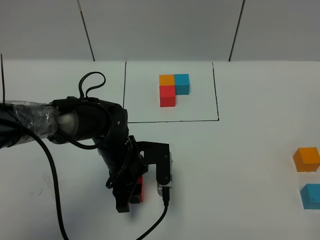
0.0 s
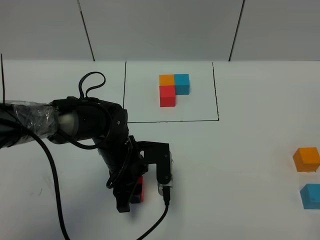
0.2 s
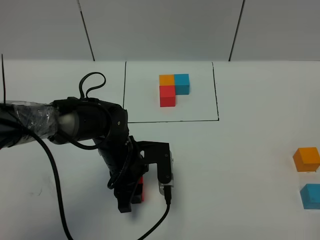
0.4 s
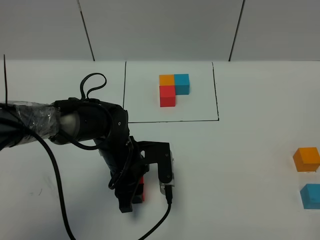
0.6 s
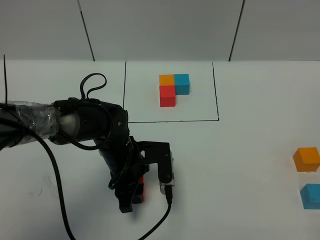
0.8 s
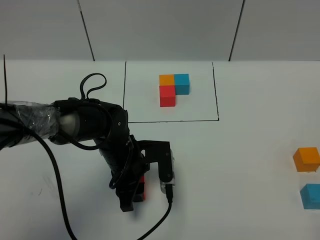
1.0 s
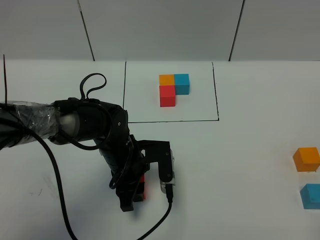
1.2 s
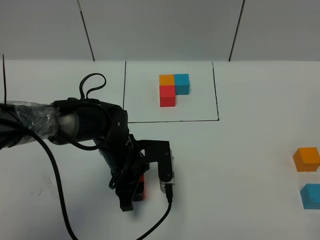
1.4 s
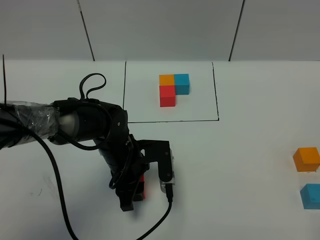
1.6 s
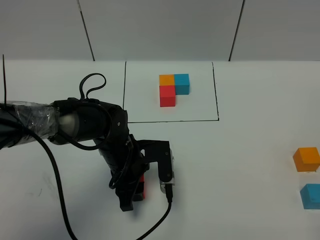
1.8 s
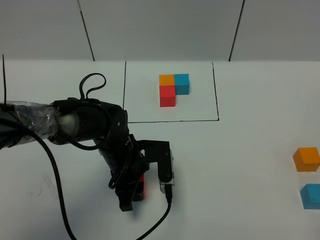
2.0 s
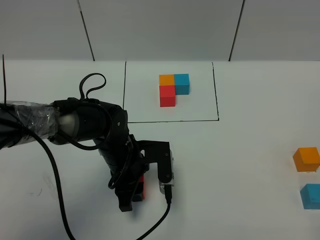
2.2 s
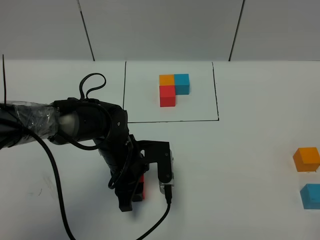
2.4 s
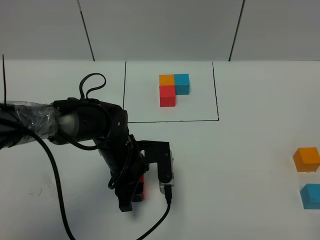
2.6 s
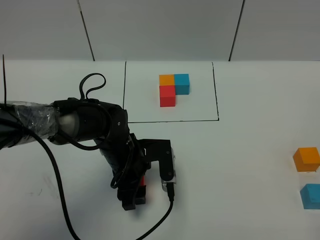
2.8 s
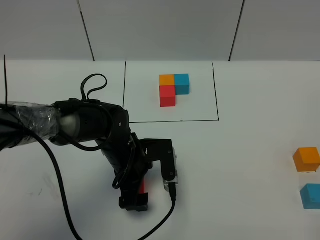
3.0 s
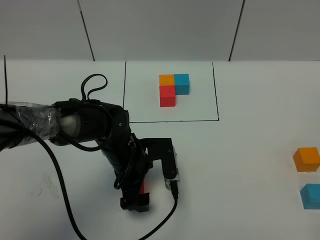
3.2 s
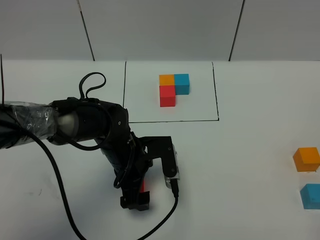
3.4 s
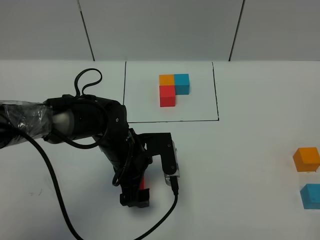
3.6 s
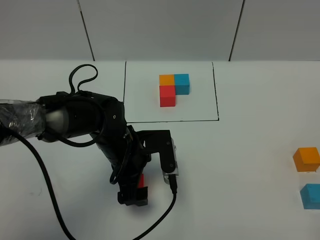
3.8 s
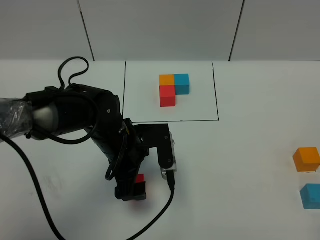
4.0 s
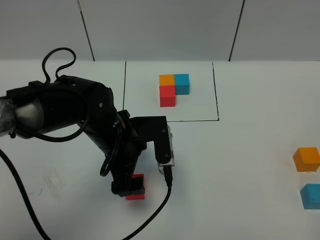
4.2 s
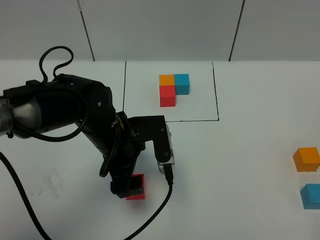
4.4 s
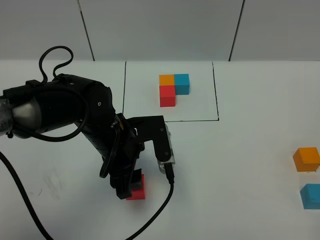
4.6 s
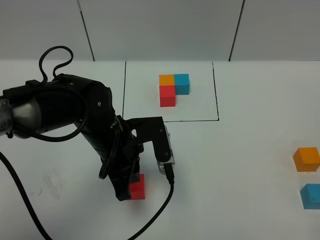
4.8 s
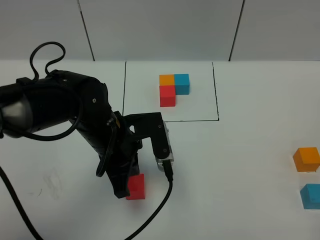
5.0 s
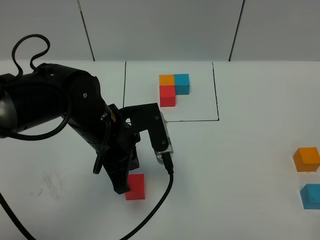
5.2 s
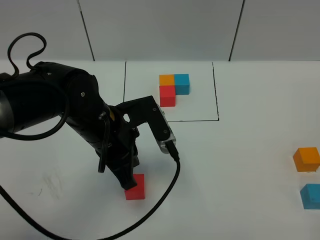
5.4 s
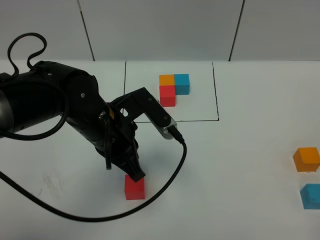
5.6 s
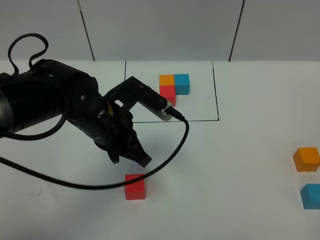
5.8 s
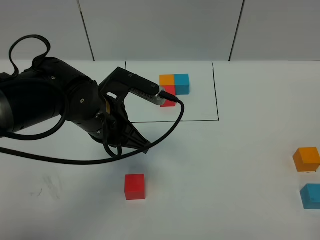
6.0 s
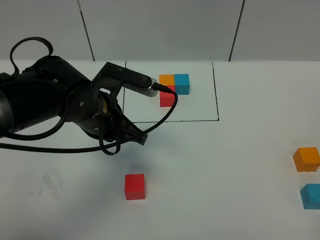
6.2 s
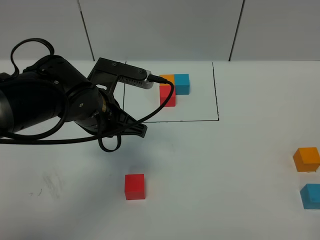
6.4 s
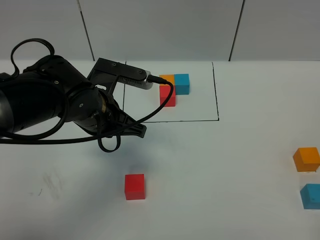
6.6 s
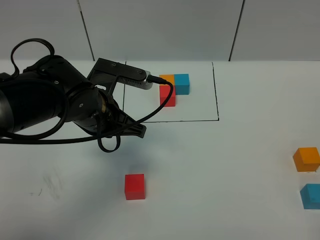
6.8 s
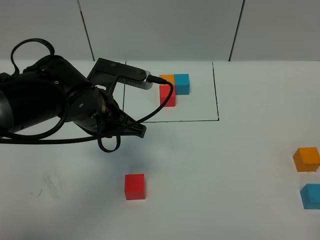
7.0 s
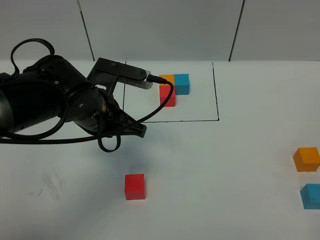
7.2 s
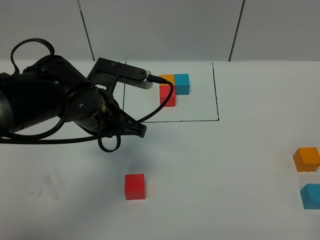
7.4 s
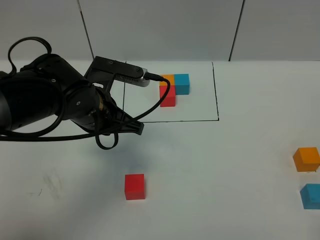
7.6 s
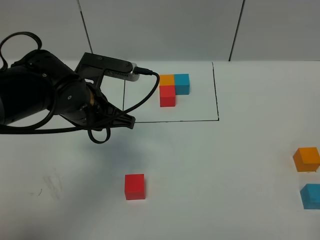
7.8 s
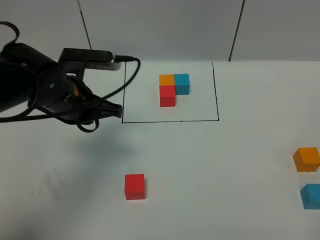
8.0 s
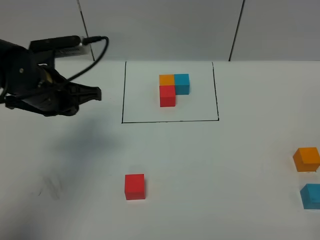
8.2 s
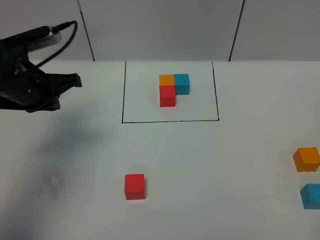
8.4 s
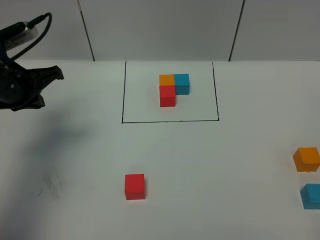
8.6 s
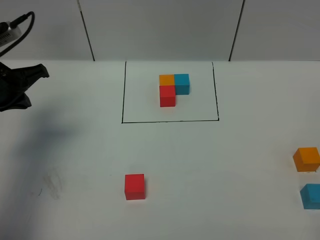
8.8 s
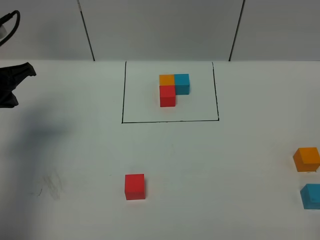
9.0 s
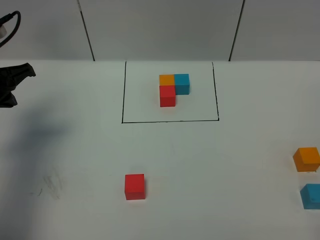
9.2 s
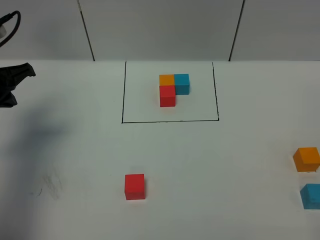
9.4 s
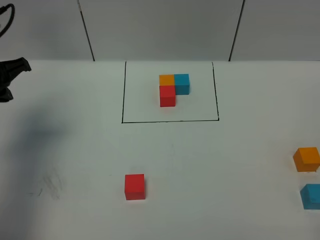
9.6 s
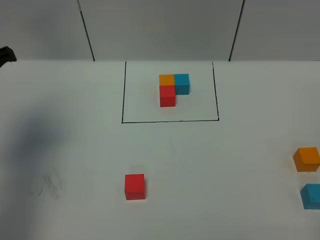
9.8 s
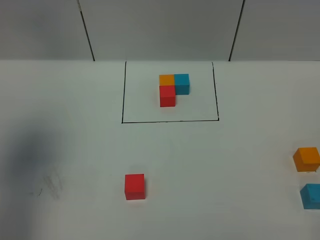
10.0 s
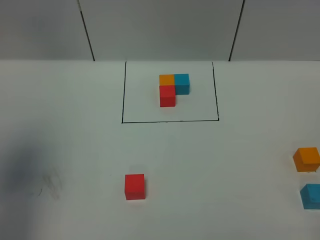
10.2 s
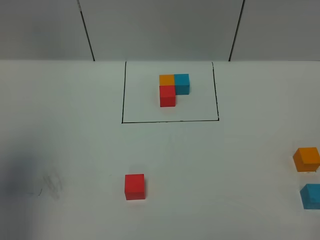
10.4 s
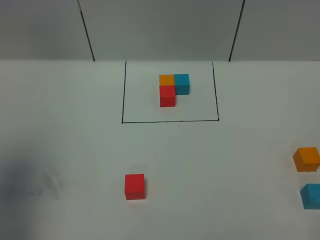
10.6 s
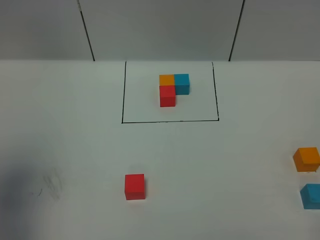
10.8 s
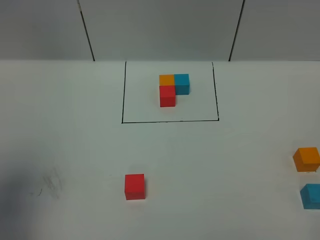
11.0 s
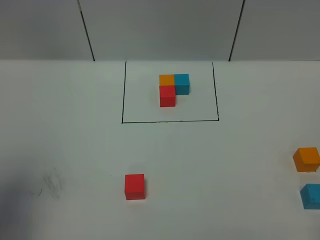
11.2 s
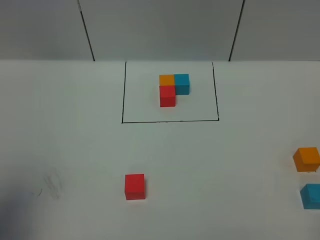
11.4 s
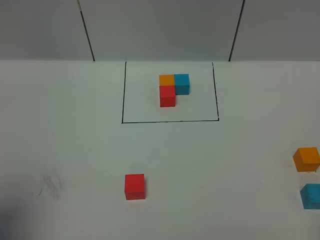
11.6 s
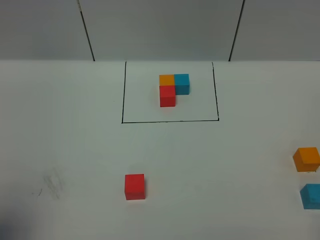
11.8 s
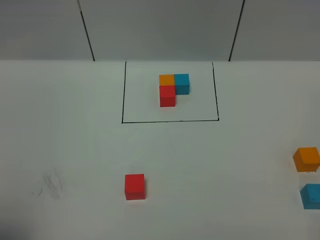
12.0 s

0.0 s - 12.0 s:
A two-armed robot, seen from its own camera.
Task of the whole recording: According to the building block template in front, assemble the scattered blocks together.
Step, 0.0 s - 4.8 s: Put the red cube in the center of the table.
0.0 s - 1.6 s: The two grippers keep their place.
1.6 s - 3.0 s: The left gripper opens its fingers.
3.0 s - 4.4 s: The left gripper moves upward, about 10 cm.
4.4 s - 6.0 s: The left gripper closes its fingers.
6.0 s - 7.6 s: The grippers stay close to where they were, moving slightly.
7.6 s - 9.0 s: The left gripper moves to the left, about 20 cm.
9.0 s - 10.4 s: The left gripper is displaced backward and upward by some 20 cm.
10.4 s - 12.0 s: The left gripper is displaced backward by some 15 cm.

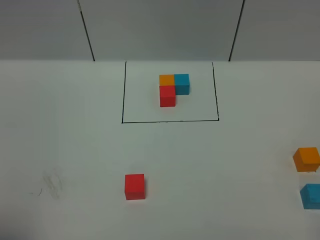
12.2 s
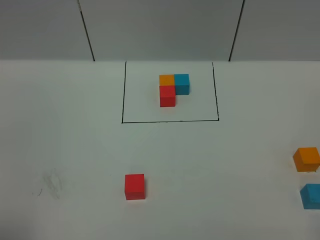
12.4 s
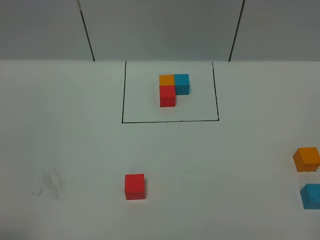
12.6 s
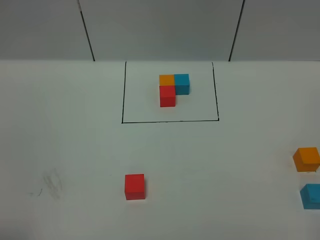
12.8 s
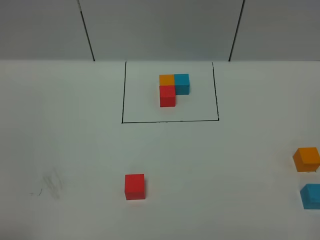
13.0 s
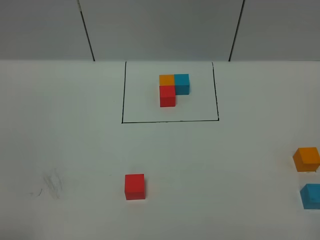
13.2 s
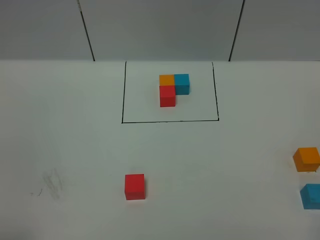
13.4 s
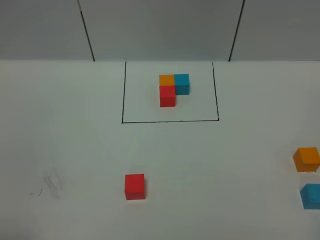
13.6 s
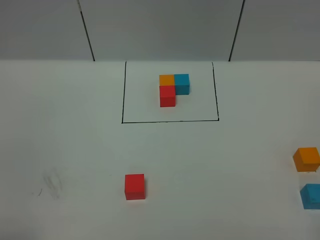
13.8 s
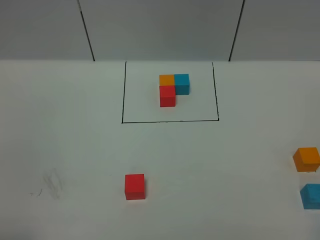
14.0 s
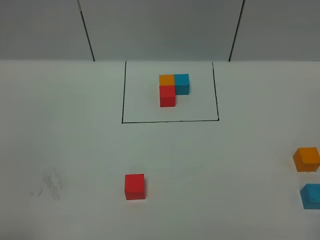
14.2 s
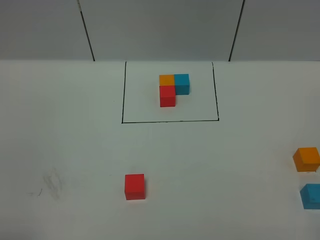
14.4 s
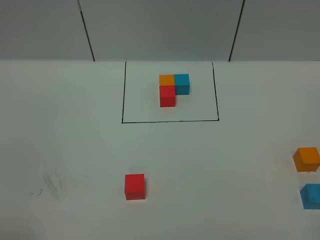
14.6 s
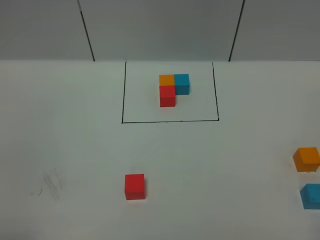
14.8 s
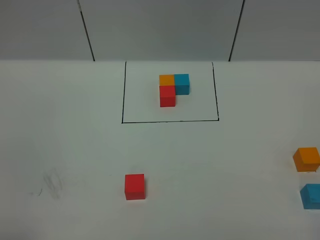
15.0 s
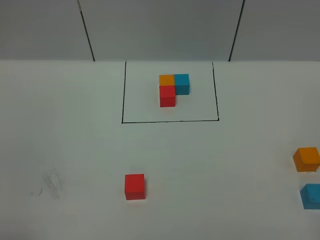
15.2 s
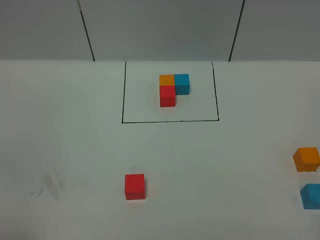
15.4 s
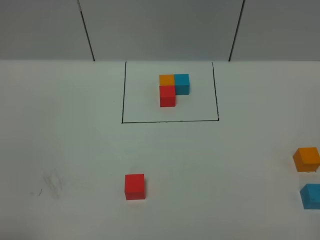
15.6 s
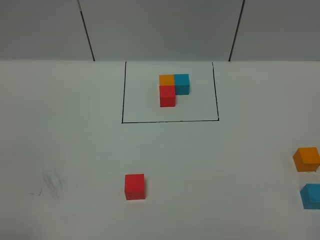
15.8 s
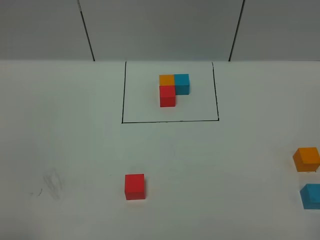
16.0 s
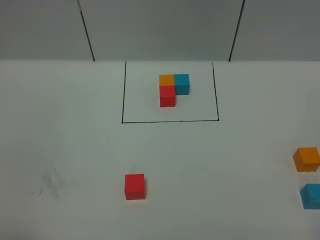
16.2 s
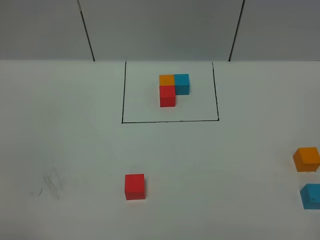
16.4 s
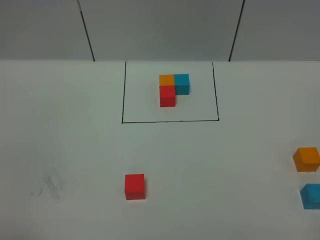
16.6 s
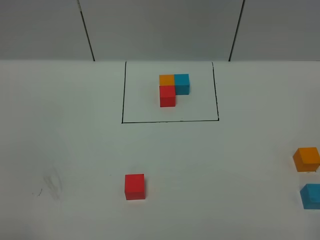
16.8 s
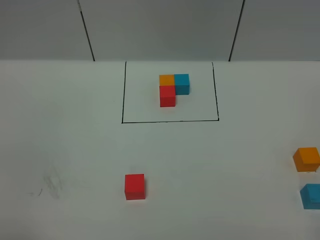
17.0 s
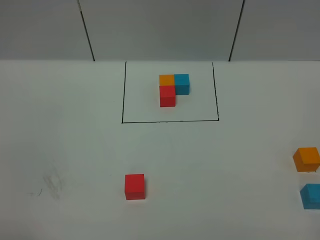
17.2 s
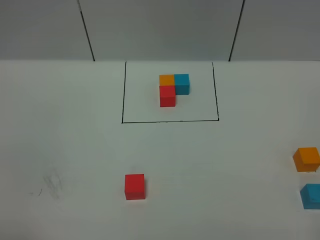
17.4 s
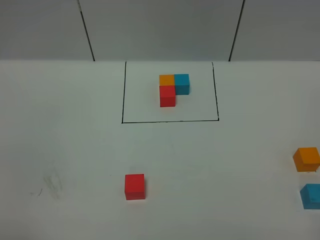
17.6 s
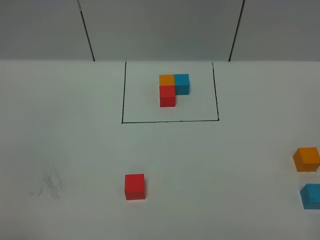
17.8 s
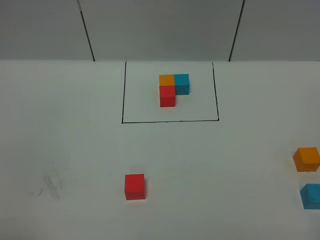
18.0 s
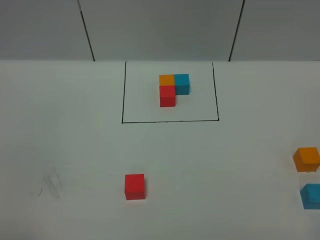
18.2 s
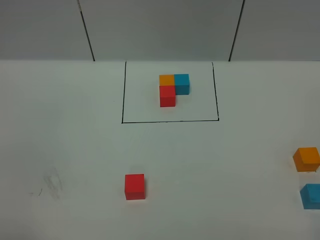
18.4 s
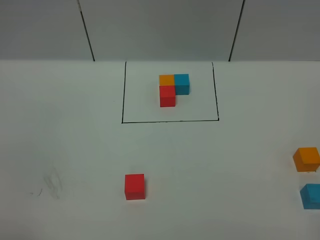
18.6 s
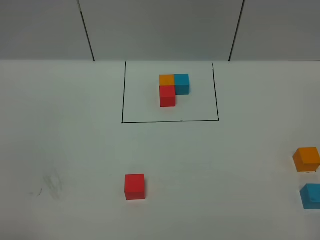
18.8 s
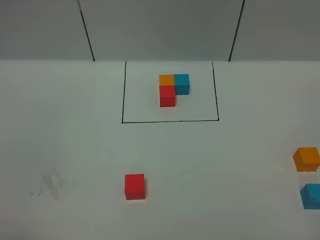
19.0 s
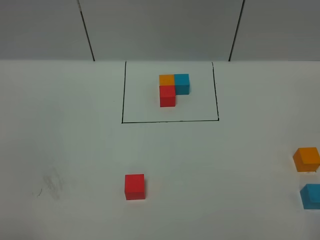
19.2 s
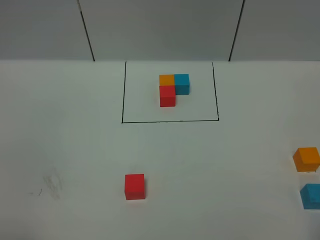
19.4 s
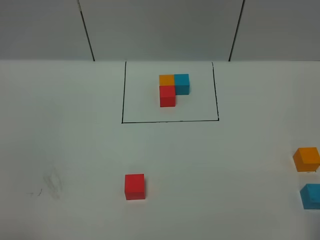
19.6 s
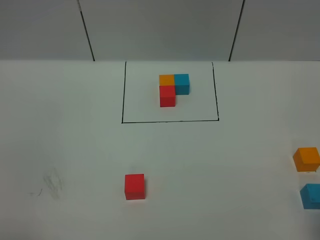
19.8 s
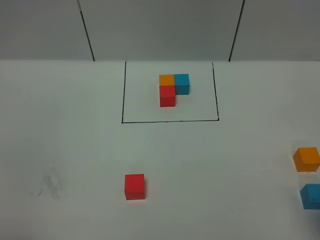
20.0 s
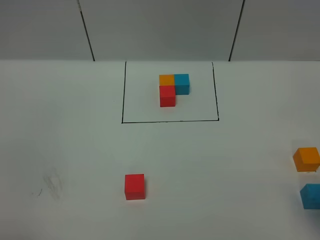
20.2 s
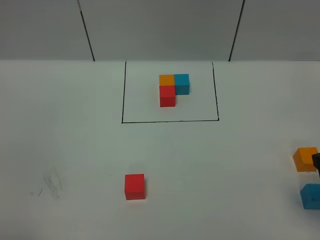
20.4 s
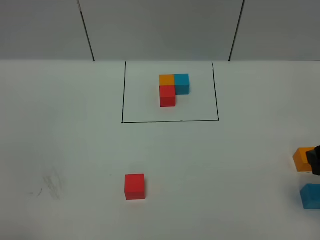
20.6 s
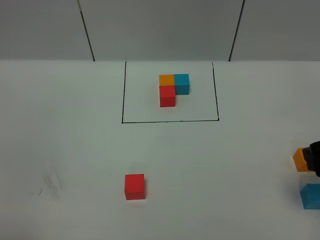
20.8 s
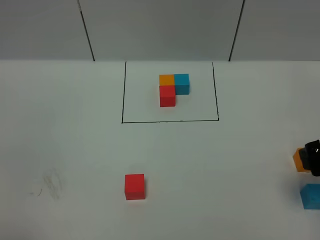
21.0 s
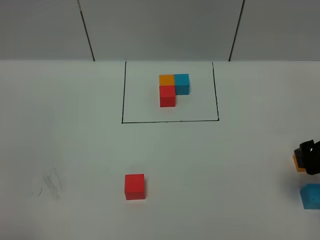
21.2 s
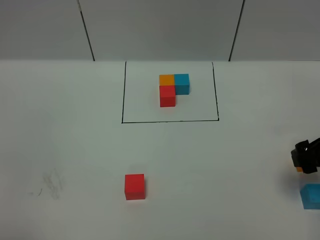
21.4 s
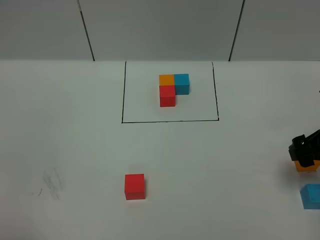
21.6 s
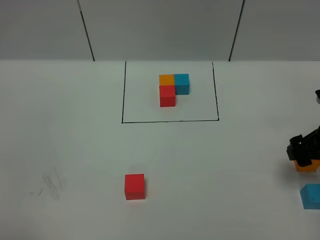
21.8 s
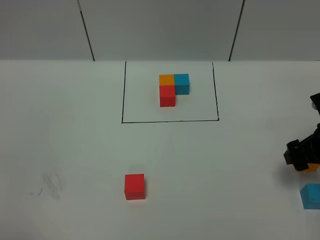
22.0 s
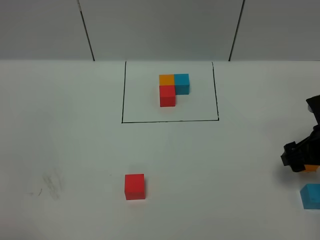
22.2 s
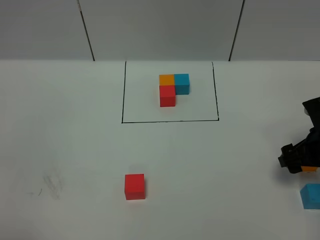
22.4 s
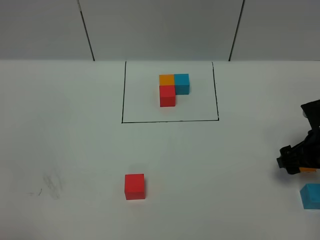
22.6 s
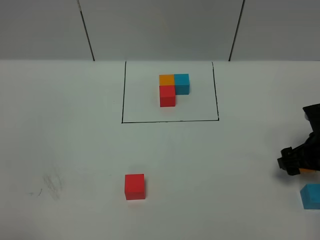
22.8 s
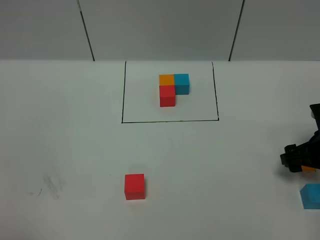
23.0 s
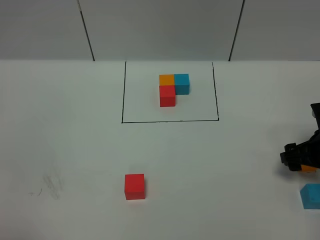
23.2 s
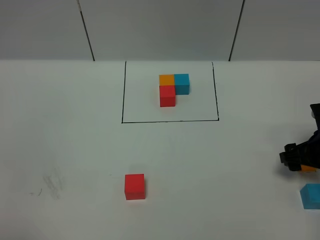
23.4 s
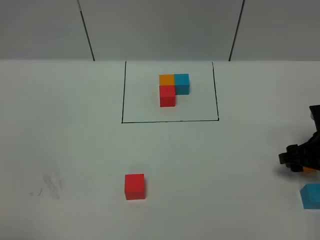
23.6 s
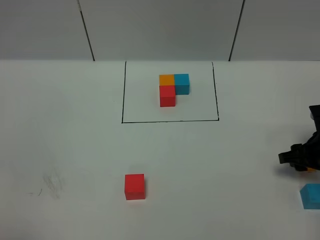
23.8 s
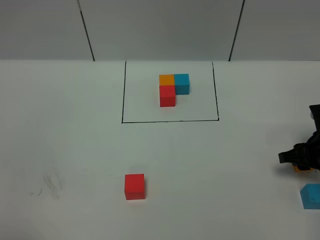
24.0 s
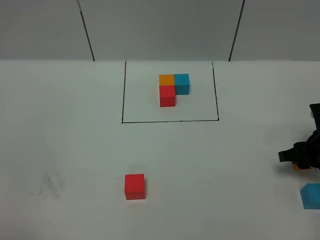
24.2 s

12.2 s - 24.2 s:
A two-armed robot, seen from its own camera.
Task of the whole recording: According to the building block template in front, assemble the scattered blocks together.
13.8 s - 15.2 s: Both grippers stay put.
19.8 s - 21.2 s: The right gripper is displaced forward and downward by approximately 15 cm.
21.2 s - 22.6 s: The right gripper travels downward and forward by roughly 10 cm.
22.6 s - 24.2 s: The right gripper closes.
